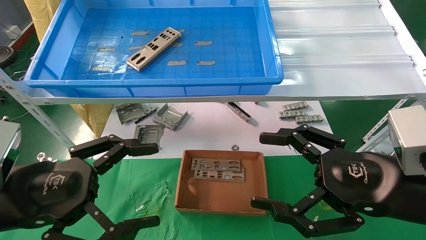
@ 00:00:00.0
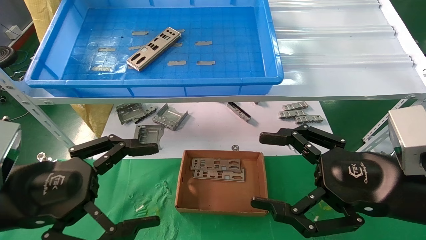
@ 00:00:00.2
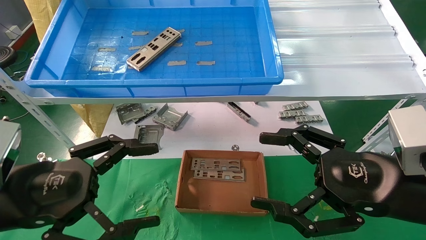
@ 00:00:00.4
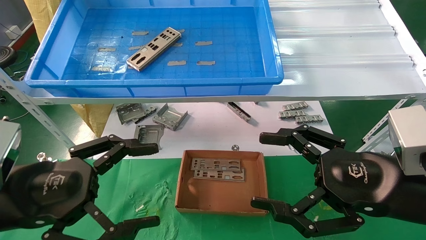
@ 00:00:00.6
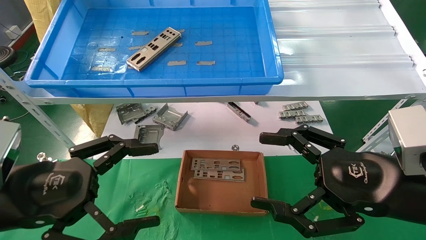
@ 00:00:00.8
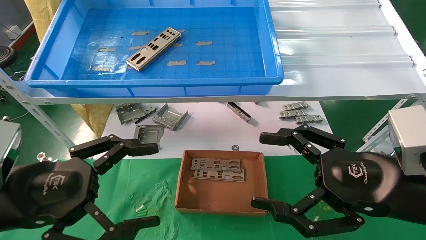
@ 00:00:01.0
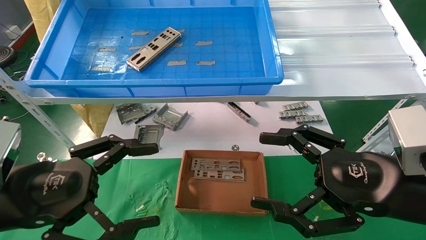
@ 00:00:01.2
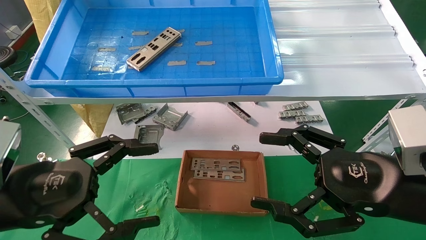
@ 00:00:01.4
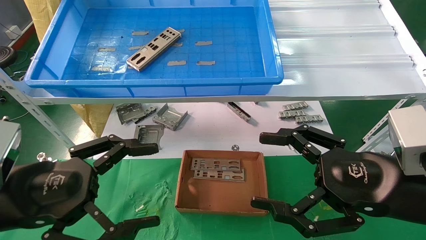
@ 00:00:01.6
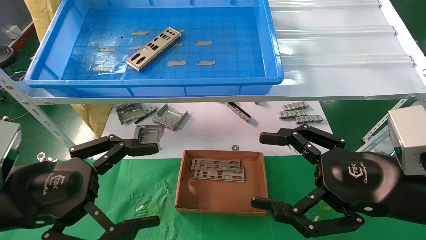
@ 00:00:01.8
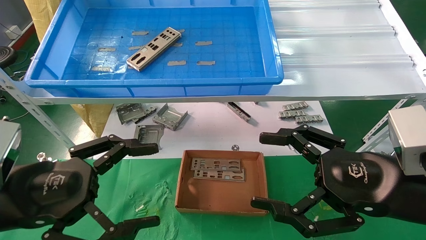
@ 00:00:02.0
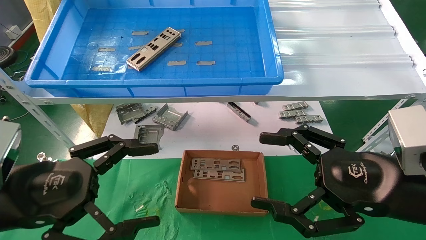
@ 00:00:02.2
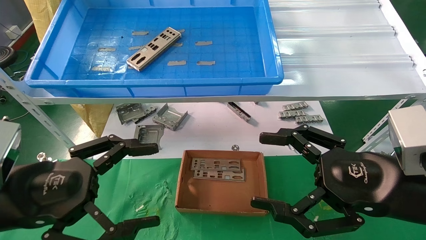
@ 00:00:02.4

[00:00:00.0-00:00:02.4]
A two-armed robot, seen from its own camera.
Task of the whole recording: pick up the parts on the tray and put them in the cardboard box.
00:00:00.0 to 00:00:02.4: Neither gripper changes place.
